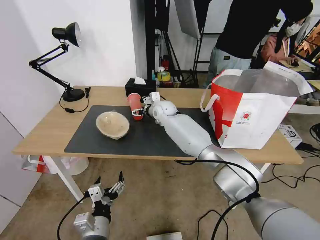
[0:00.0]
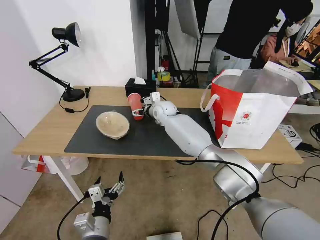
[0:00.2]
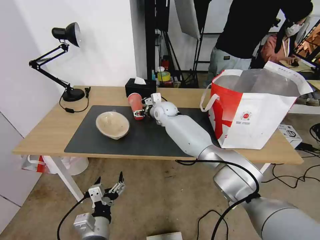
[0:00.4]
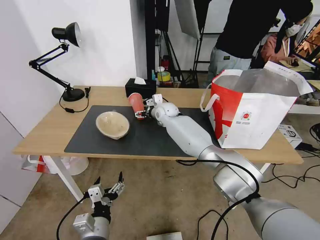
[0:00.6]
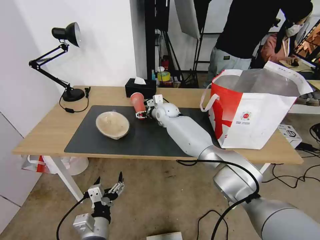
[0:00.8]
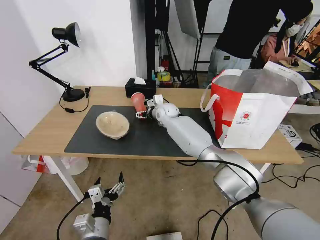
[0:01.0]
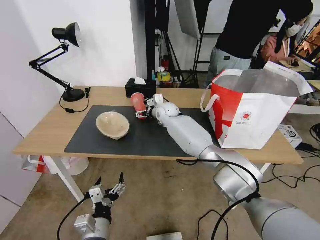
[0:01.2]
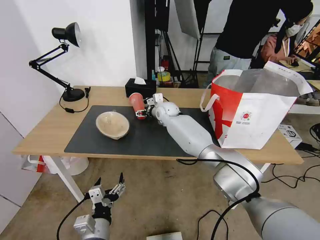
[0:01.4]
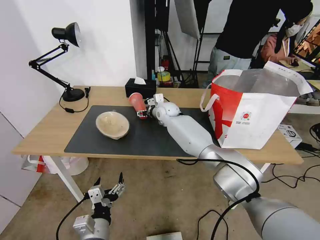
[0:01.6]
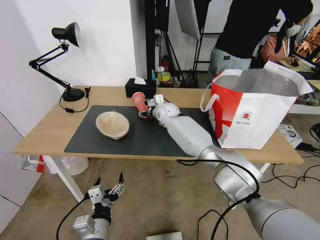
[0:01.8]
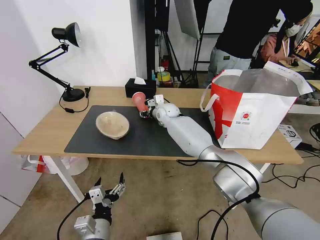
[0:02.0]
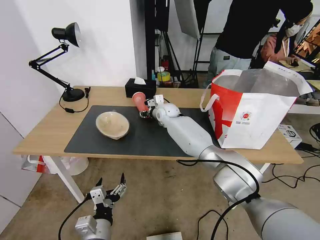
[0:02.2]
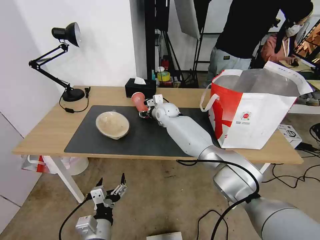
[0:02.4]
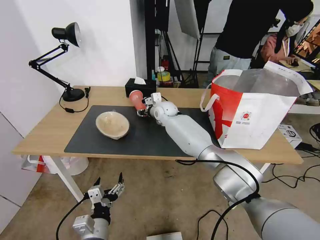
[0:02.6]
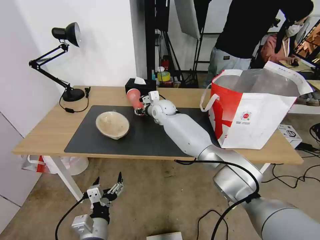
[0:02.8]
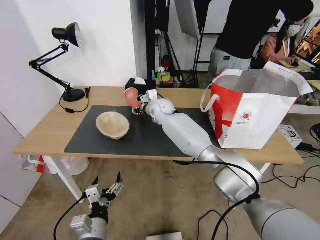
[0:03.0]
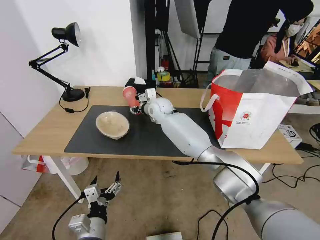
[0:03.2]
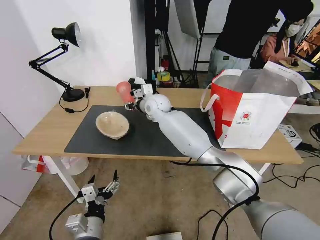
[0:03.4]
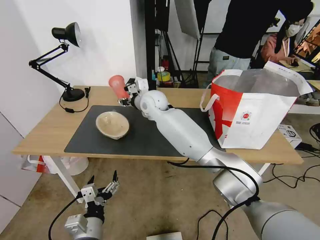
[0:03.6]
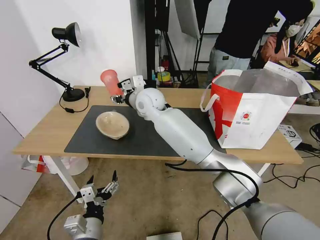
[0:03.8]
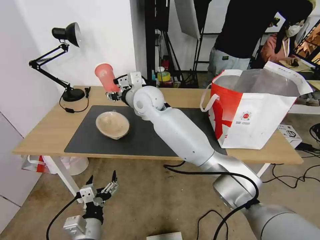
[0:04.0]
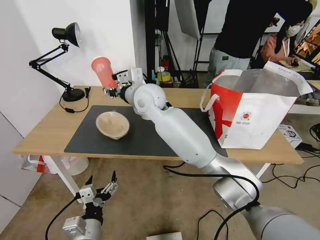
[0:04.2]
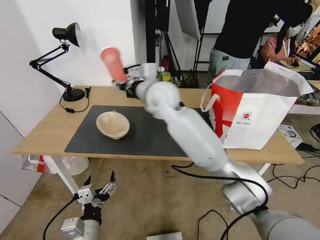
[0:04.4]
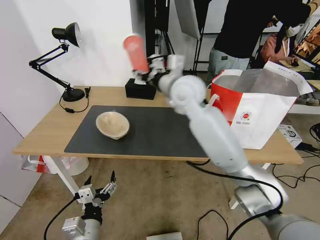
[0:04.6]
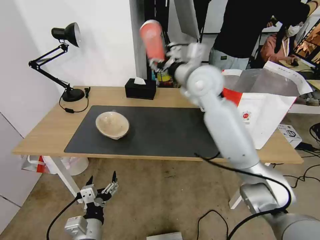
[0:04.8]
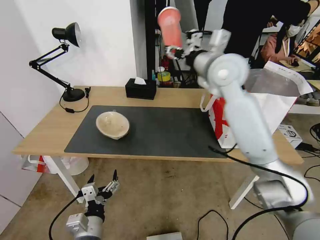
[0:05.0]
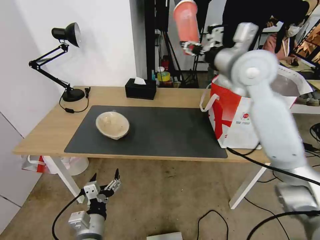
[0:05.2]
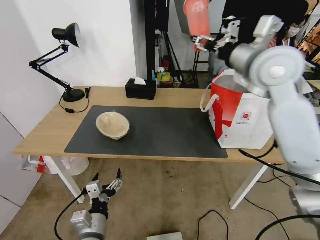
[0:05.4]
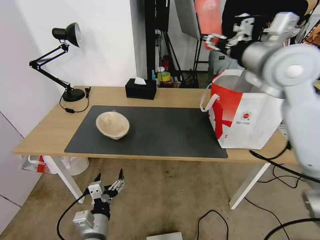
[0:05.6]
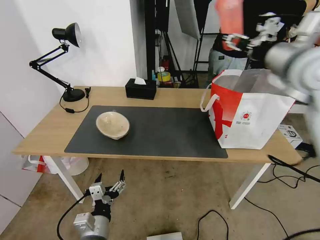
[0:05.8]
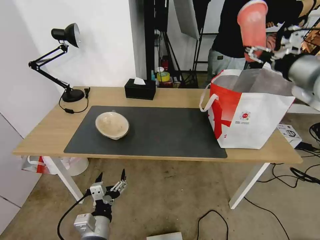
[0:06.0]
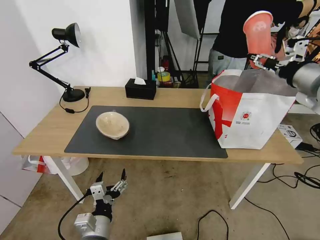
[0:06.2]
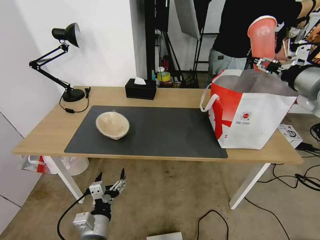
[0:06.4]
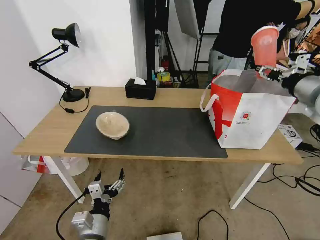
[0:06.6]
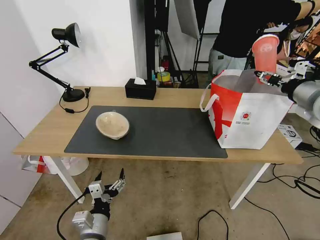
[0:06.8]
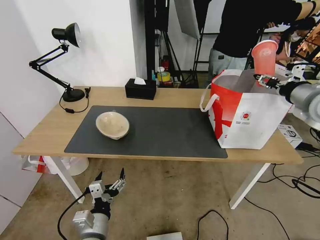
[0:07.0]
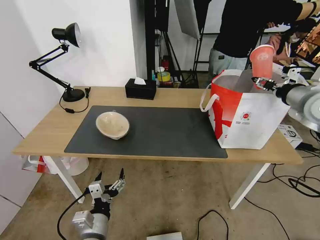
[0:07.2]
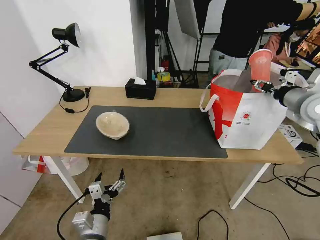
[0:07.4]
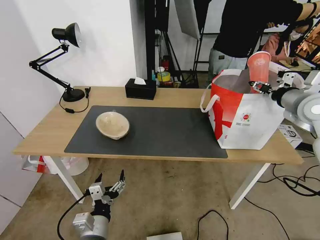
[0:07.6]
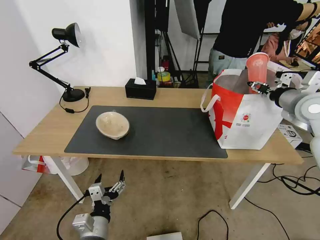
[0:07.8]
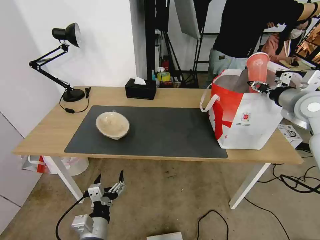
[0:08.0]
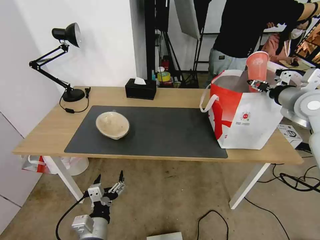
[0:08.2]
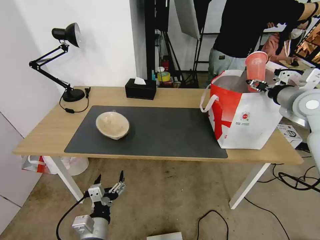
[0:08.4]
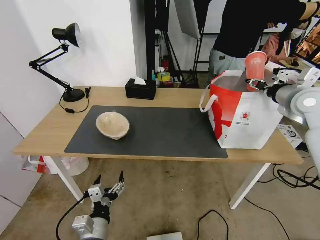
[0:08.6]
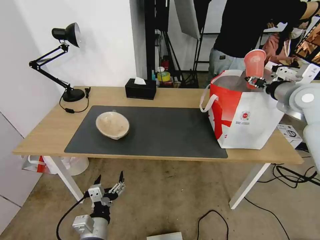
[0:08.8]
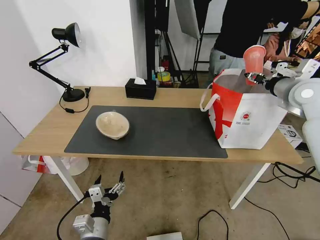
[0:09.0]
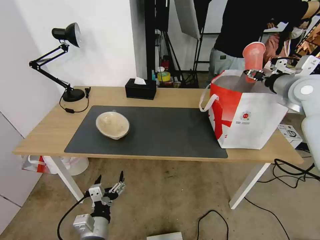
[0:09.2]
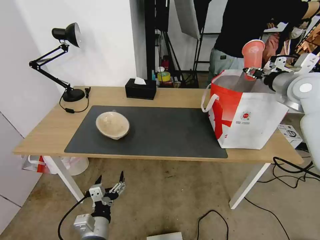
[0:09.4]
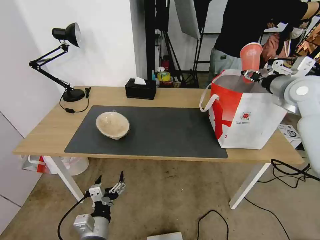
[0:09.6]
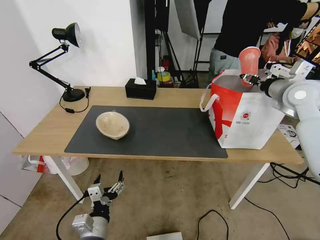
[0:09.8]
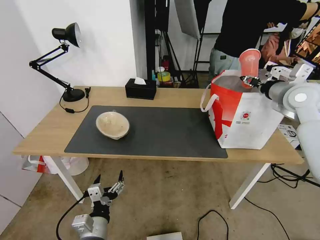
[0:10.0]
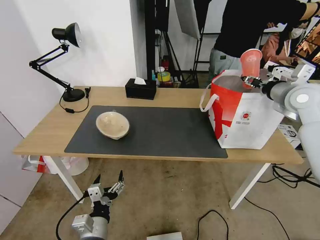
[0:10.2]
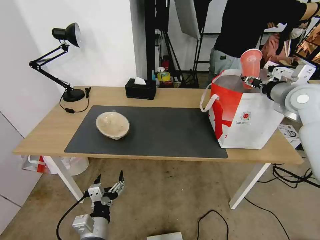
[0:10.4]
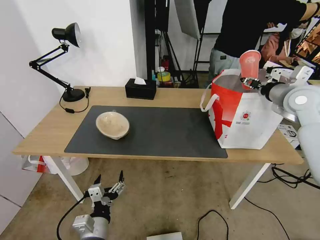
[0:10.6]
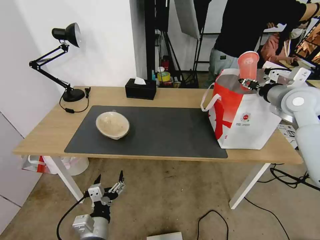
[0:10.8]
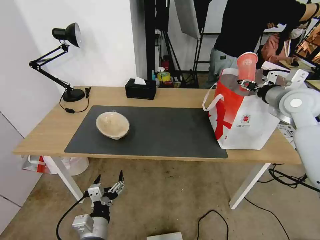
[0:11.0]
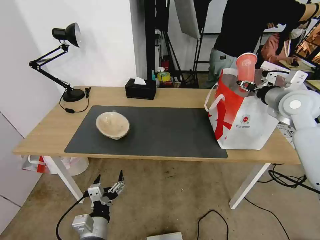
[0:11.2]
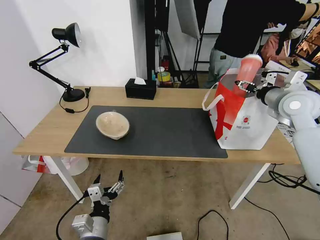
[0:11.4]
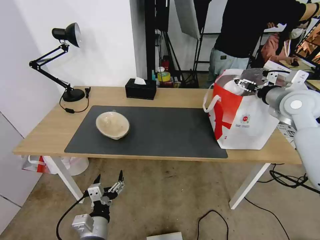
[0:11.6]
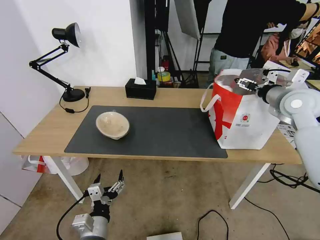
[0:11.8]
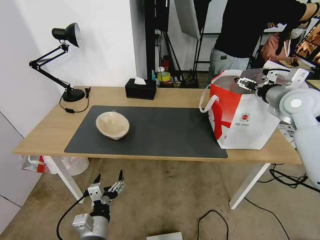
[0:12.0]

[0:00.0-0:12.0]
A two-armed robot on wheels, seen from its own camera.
Task of the whole recording: Pick up the trash from the table and place it into the takeout bag.
0:00.0 to 0:03.0: The grippers move only a little.
0:03.0 to 0:04.4: The right gripper shifts some 20 cm upward and backward.
0:04.4 to 0:06.0: The right gripper heads to the right, covering approximately 35 cm.
0:06.0 to 0:07.6: The right gripper shifts some 10 cm downward and to the right.
0:07.6 to 0:10.4: There are only small adjustments of the grippers.
0:10.4 to 0:12.0: The right gripper opens.

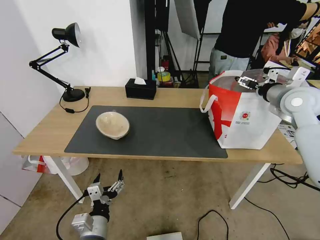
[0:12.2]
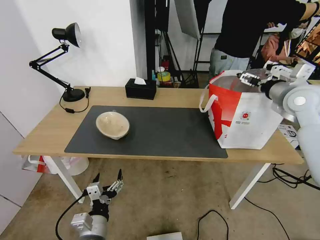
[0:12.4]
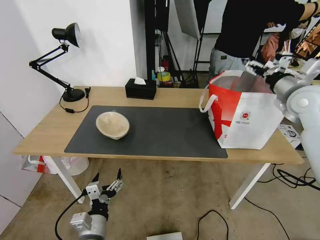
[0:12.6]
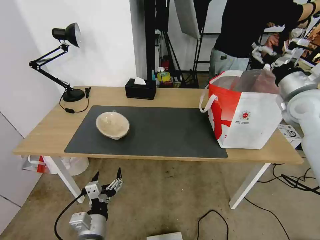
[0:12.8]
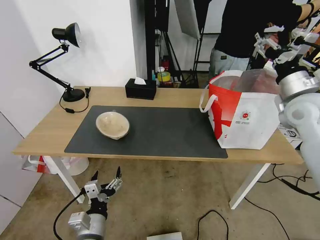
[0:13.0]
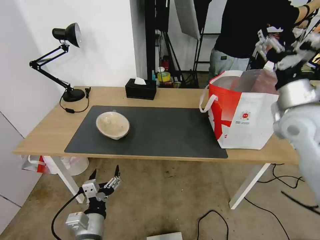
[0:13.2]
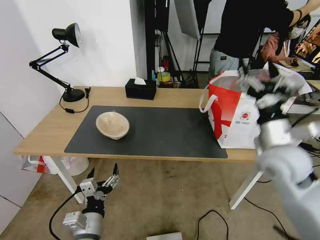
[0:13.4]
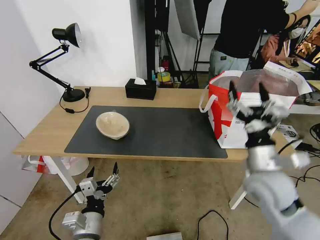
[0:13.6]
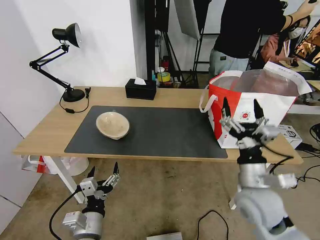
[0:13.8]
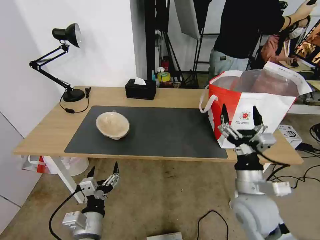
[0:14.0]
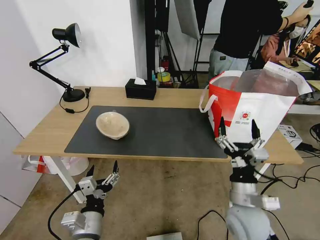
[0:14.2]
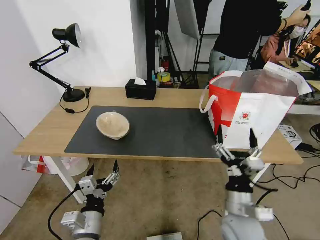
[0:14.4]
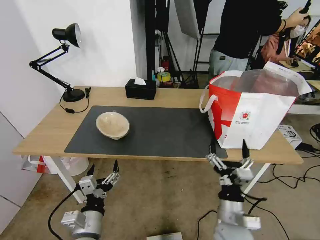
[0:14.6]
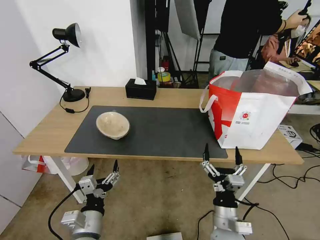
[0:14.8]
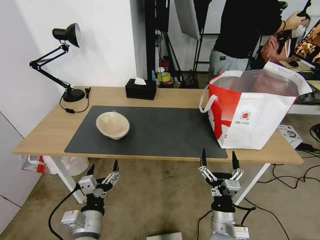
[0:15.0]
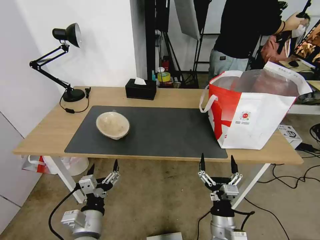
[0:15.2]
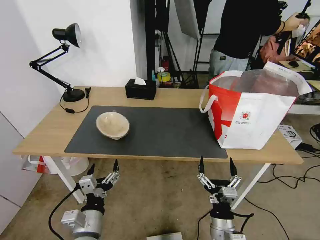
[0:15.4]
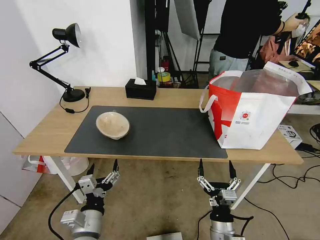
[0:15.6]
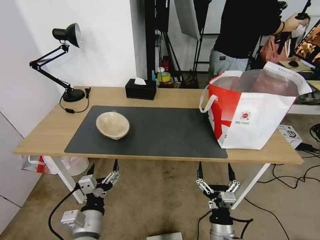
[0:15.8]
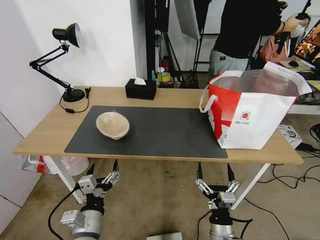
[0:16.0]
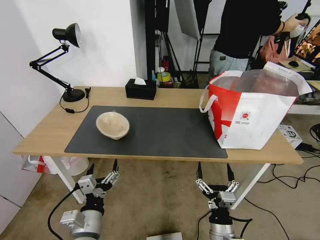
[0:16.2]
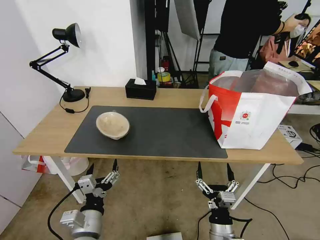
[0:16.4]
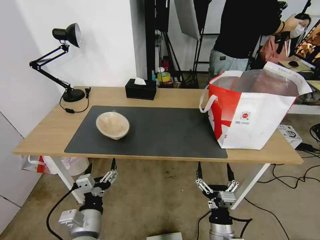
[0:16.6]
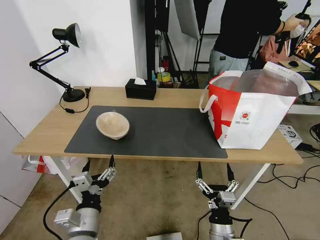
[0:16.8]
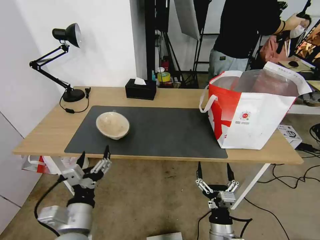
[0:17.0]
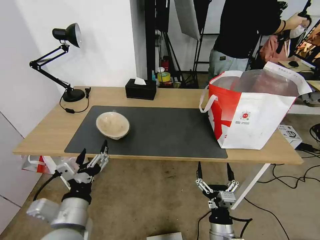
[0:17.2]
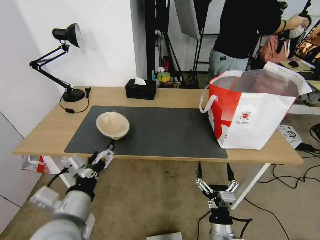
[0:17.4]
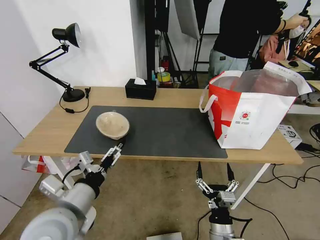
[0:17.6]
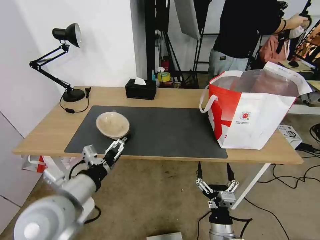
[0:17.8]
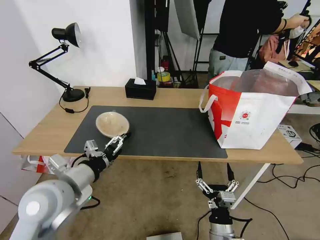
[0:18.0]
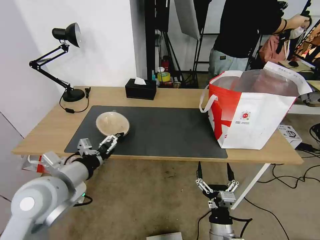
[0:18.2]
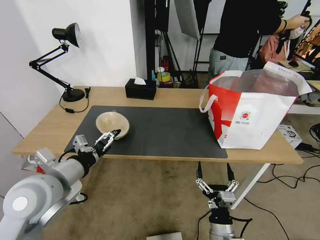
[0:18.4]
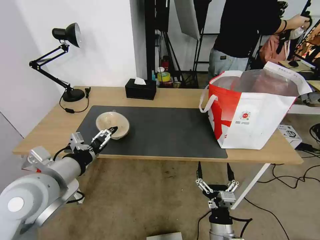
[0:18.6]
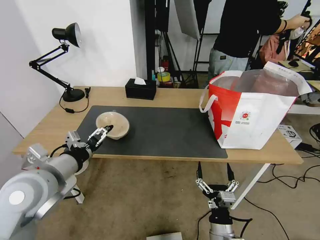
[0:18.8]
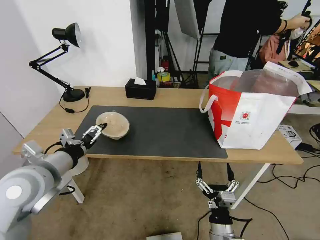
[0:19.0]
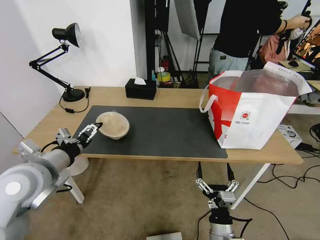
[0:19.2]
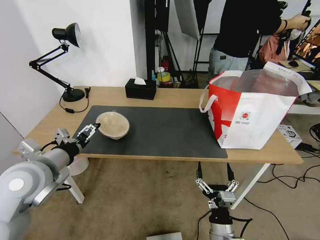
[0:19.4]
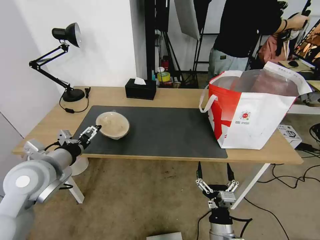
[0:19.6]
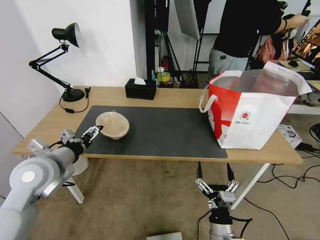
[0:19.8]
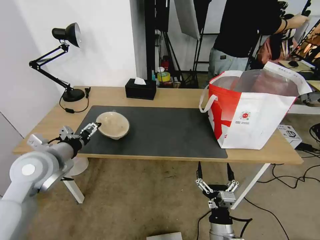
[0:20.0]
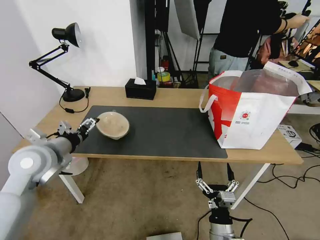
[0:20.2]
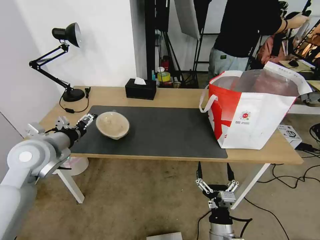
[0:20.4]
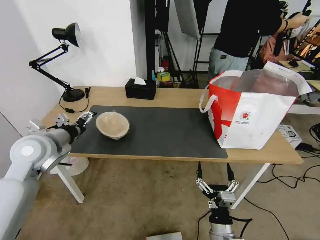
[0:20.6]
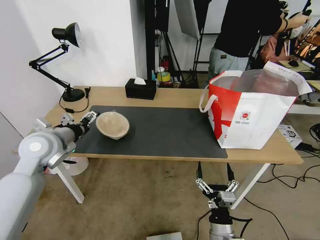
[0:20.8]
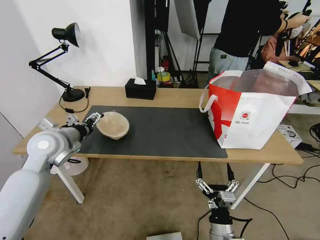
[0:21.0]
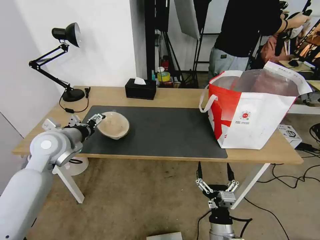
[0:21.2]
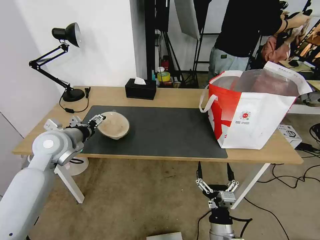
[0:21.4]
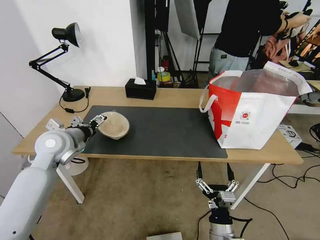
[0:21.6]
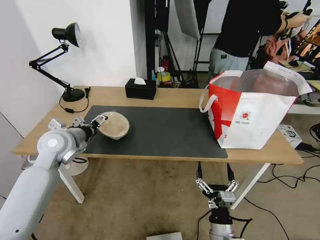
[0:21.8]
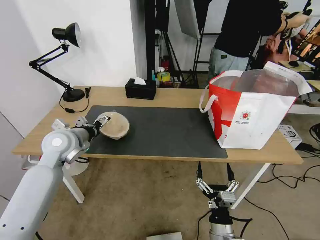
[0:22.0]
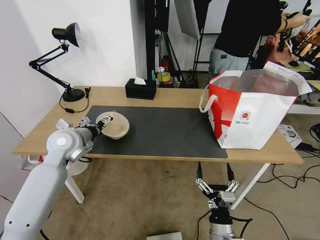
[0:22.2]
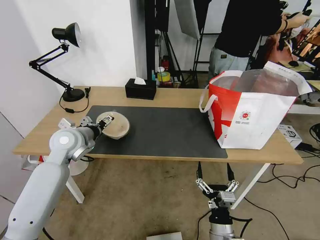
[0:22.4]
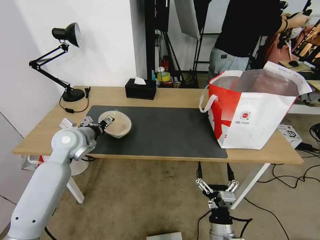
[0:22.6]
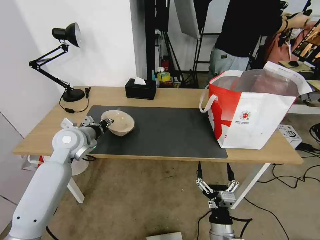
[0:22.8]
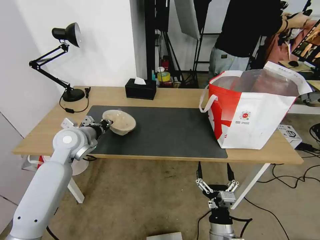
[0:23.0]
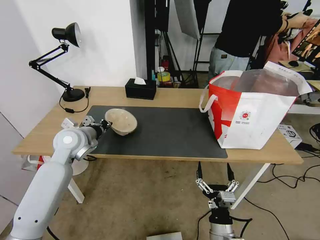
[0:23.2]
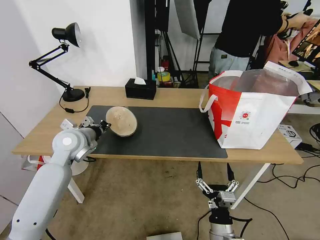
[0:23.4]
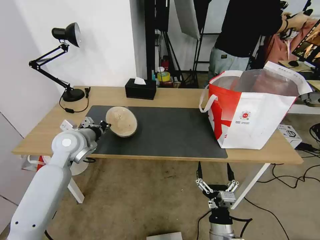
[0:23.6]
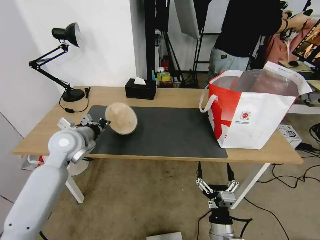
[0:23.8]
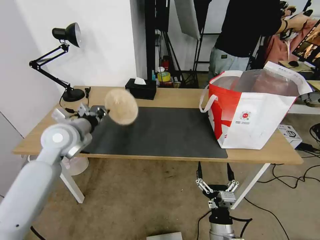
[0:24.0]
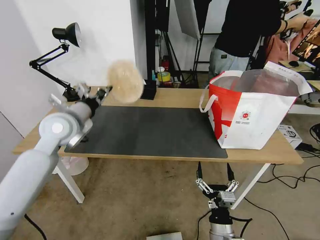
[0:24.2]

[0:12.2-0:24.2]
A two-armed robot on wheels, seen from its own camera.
Task of the whole recording: Pick up the trash from the table and place it into the takeout bag.
0:12.2 to 0:13.8: The right gripper is displaced backward, downward and to the left by about 30 cm.
0:13.8 to 0:15.2: The right gripper travels downward, backward and to the left by about 20 cm.
0:15.2 to 0:16.6: The grippers make only small movements.
0:16.6 to 0:18.2: The left gripper goes about 20 cm upward, forward and to the left.
0:18.2 to 0:19.8: The left gripper travels forward by some 5 cm.
0:19.8 to 0:21.2: The left gripper shifts some 10 cm forward.
0:21.2 to 0:22.6: The grippers make only small movements.
0:22.6 to 0:24.2: The left gripper moves upward, approximately 5 cm, and closes.
